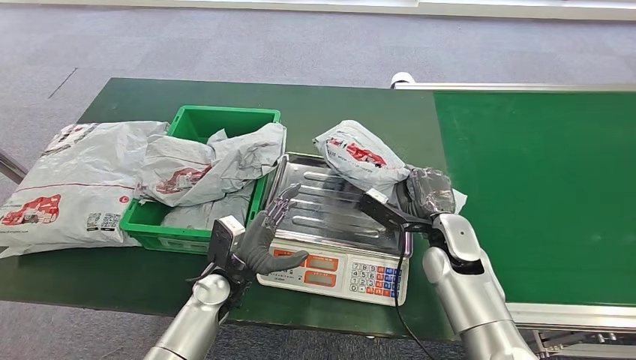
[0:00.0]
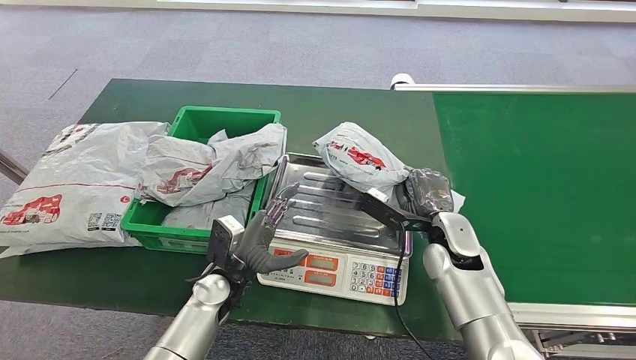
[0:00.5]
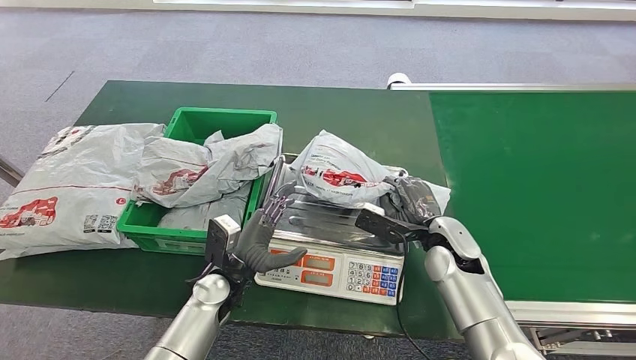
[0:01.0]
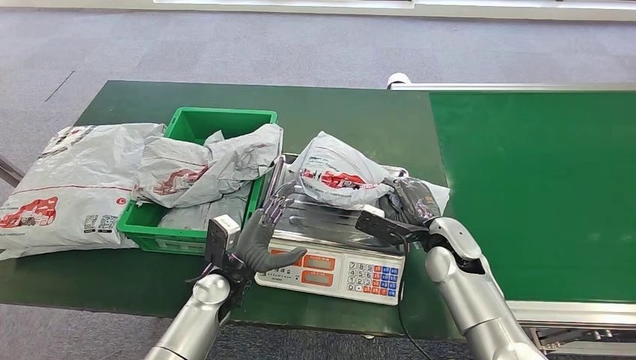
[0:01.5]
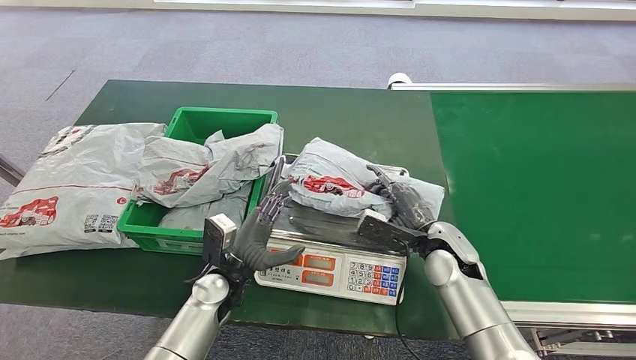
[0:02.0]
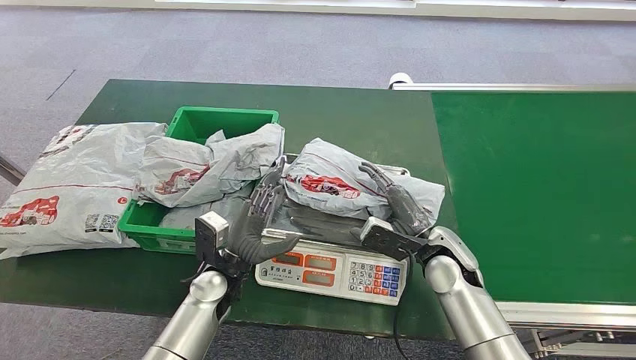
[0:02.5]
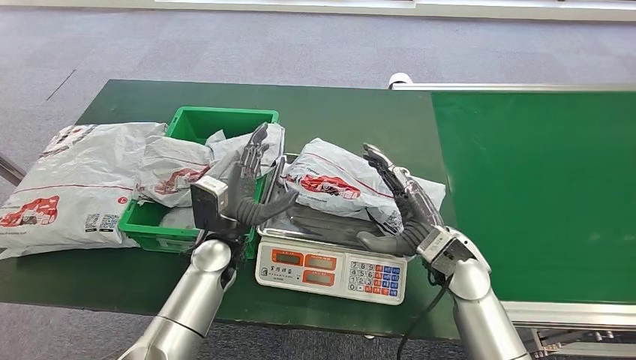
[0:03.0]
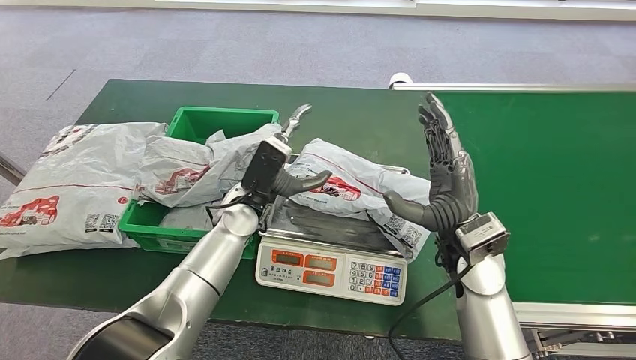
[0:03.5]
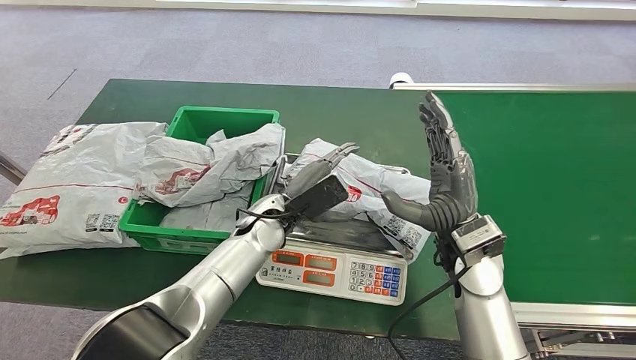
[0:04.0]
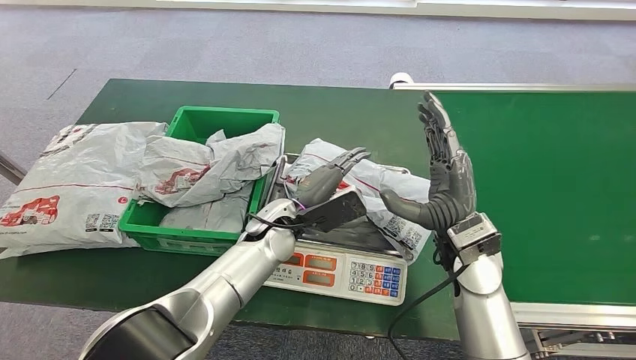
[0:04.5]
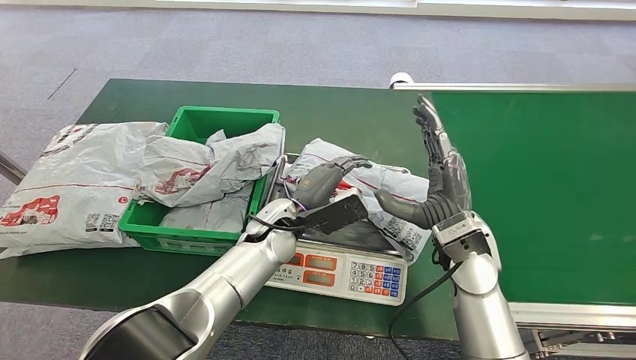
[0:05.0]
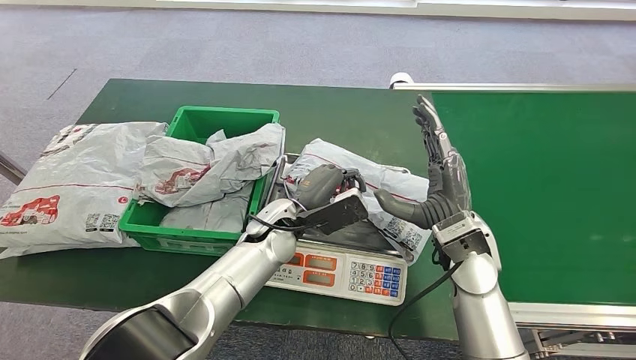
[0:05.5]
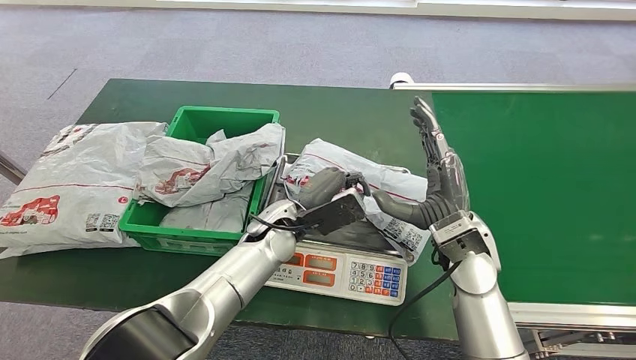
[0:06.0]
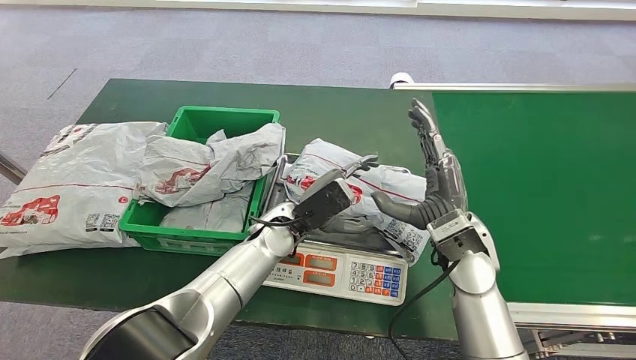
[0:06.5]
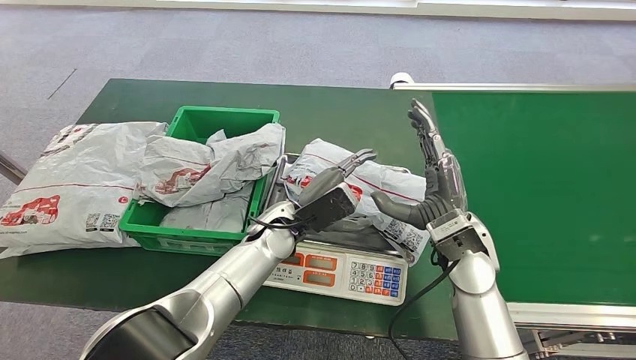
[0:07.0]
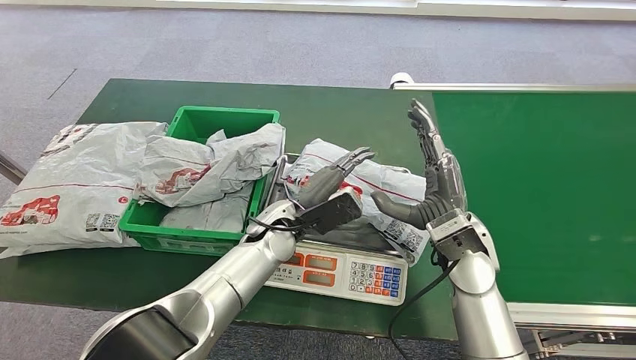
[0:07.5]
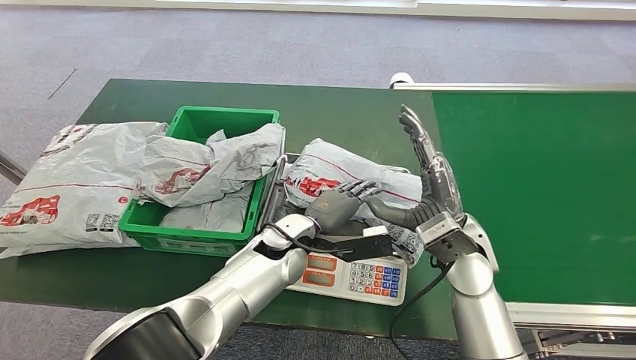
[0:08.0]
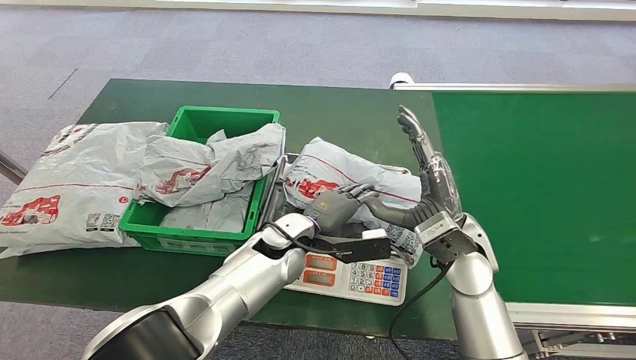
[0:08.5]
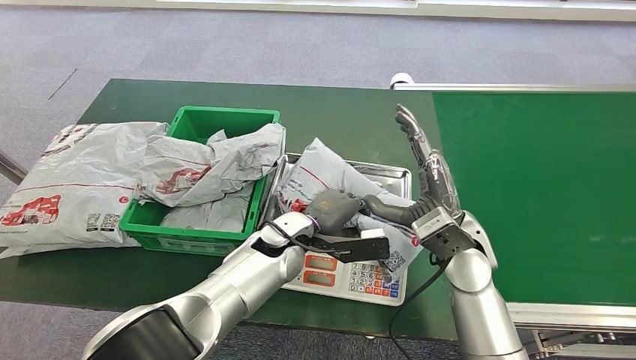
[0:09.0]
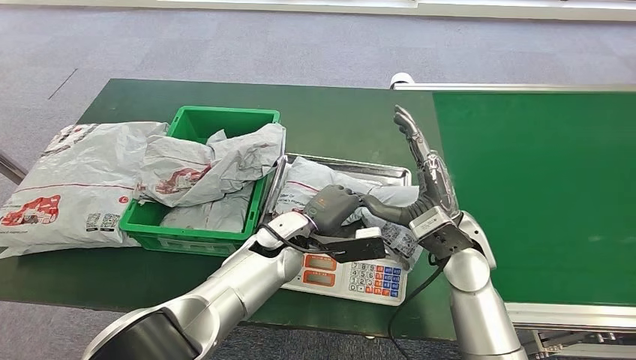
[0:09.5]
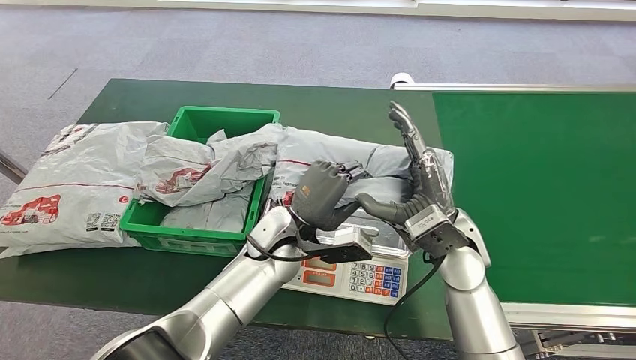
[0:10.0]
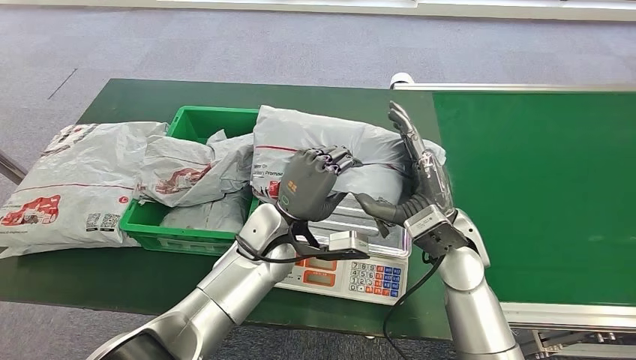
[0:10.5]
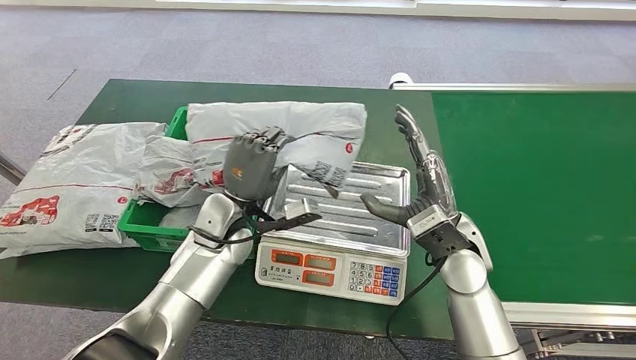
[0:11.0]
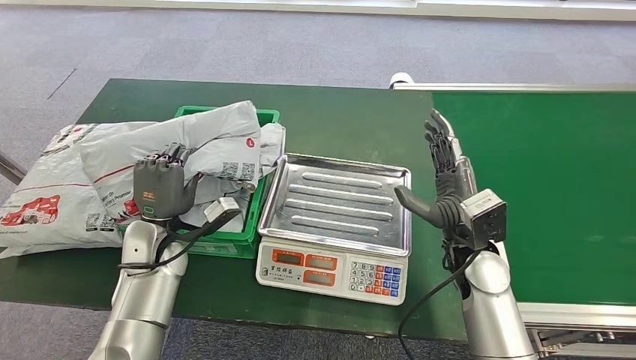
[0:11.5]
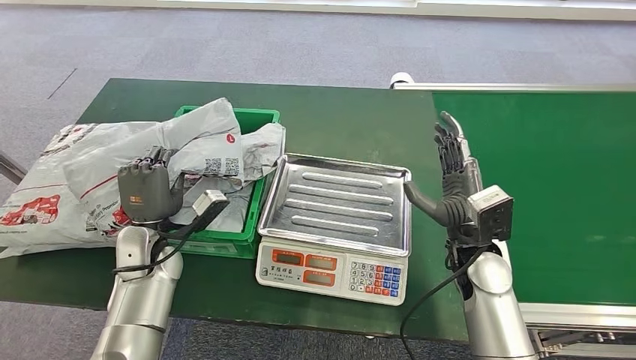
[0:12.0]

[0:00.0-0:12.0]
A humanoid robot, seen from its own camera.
Step, 0:00.0 to 0:03.0: Place the parcel onto the inbound machine.
Step, 0:03.5 to 0:10.5: Pick up the parcel from the inbound machine.
0:02.0 to 0:04.0: The right hand shifts approximately 10 cm upward. Meanwhile the left hand shifts roughly 15 cm upward, forward and to the right.
0:04.0 to 0:06.0: There are only small adjustments of the hands.

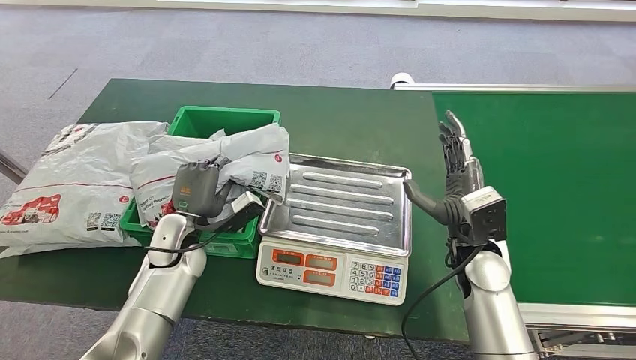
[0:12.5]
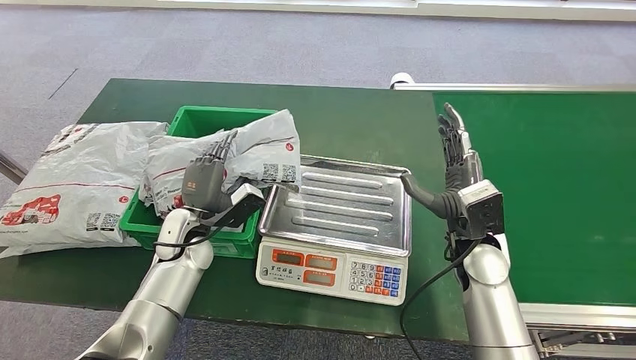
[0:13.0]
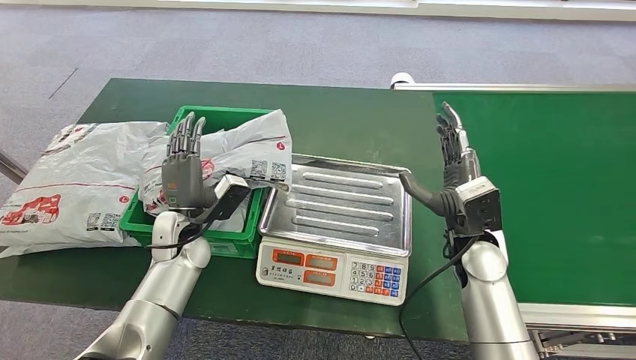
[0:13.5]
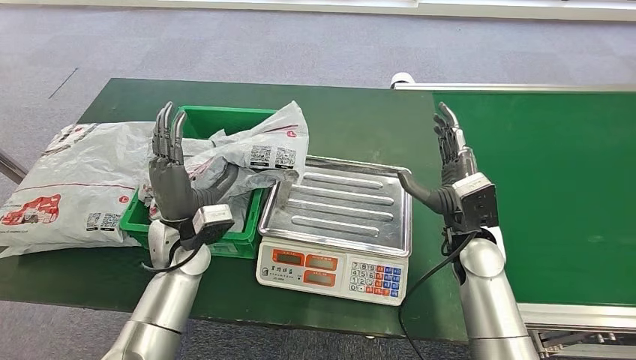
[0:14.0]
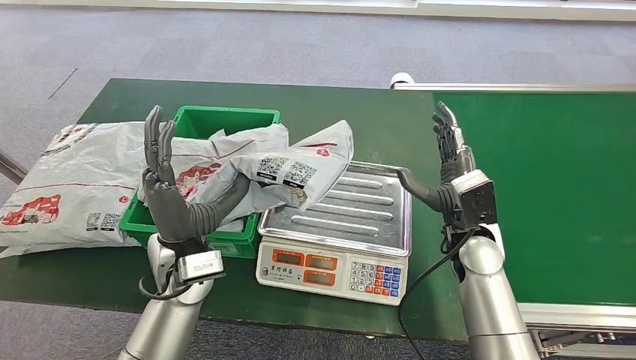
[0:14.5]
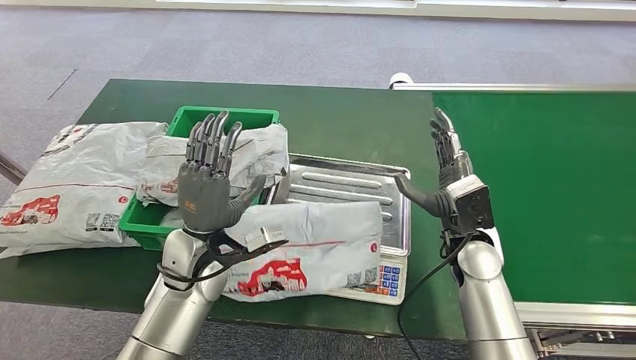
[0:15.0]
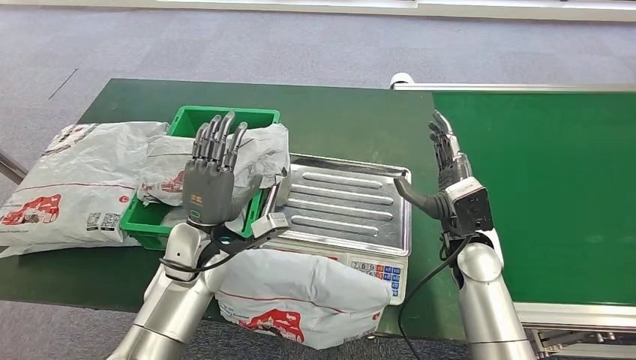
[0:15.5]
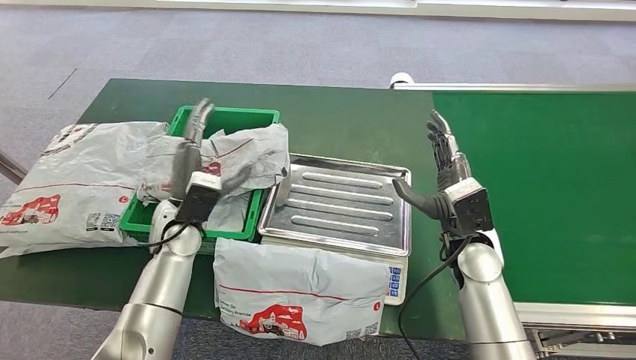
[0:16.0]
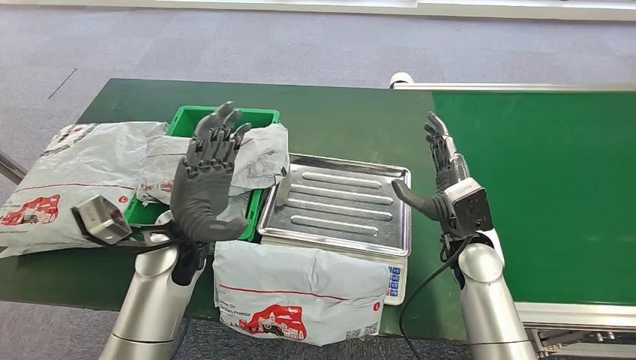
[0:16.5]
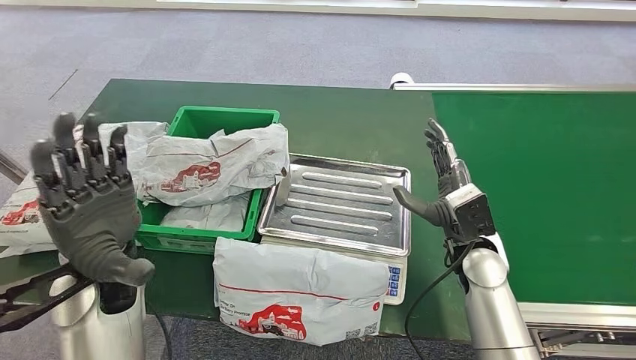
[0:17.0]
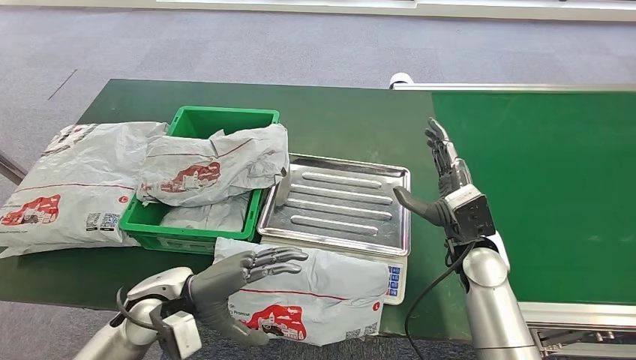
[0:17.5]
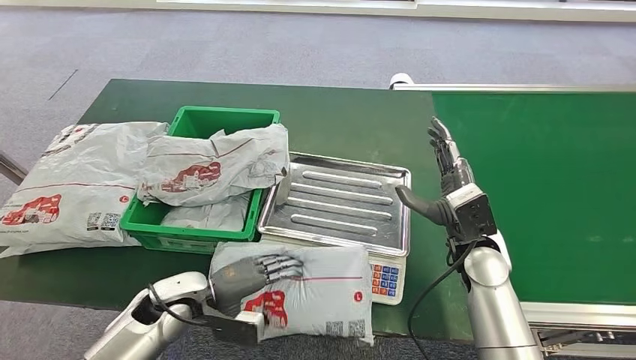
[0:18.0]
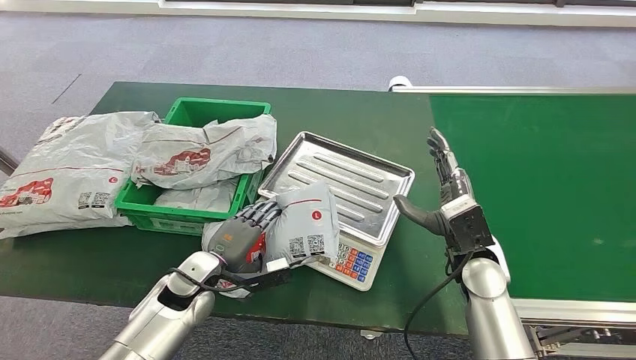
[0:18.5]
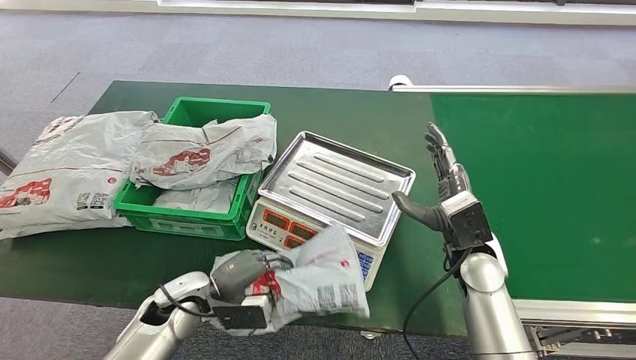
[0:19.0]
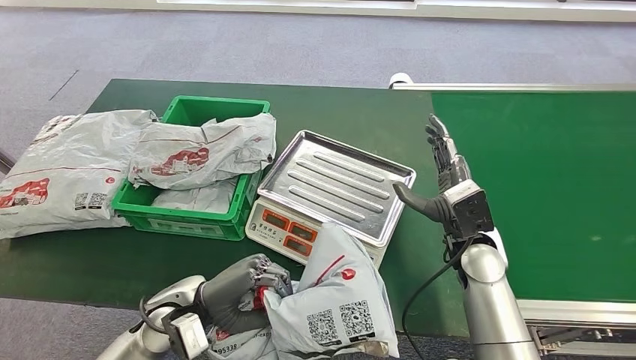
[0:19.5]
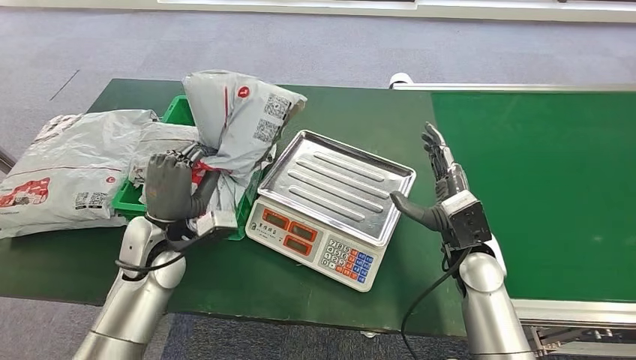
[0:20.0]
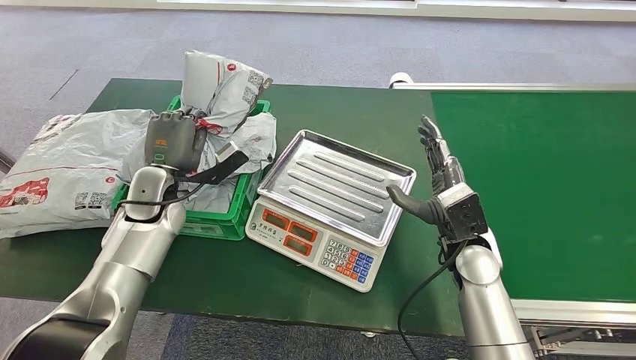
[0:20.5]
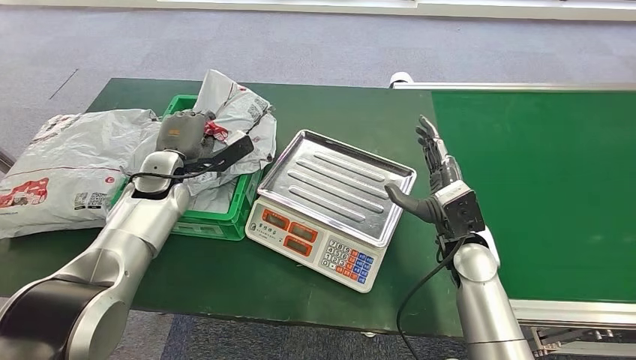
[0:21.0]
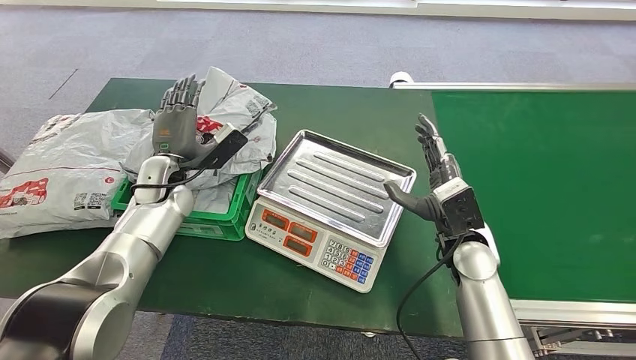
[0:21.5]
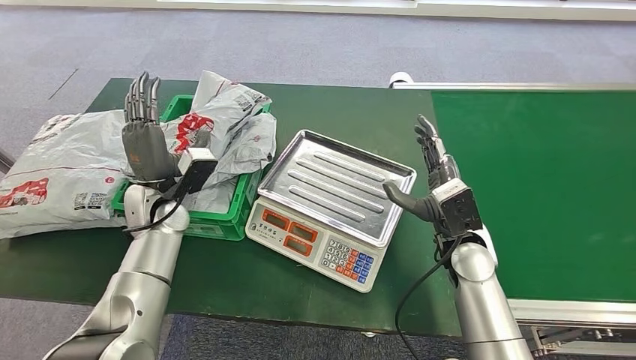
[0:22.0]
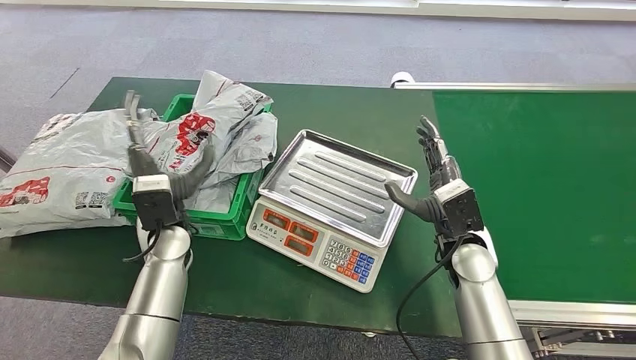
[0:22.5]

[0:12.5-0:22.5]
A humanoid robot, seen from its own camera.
Step, 0:18.5 to 0:20.0: Pick up the parcel from the inbound machine.
Step, 0:20.5 to 0:22.5: Place the parcel into the delivery box.
0:12.5 to 0:14.5: The left hand is displaced upward, to the right and backward by approximately 10 cm.
0:20.5 to 0:22.5: The left hand shifts about 5 cm backward.
